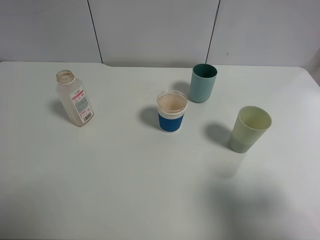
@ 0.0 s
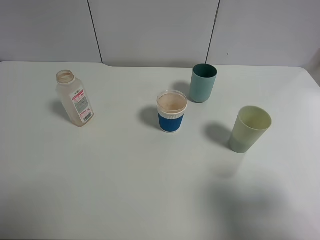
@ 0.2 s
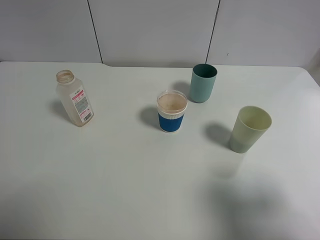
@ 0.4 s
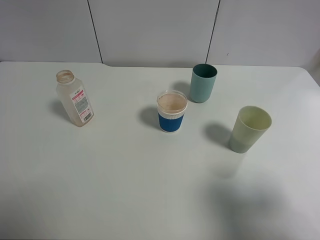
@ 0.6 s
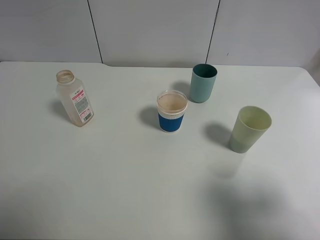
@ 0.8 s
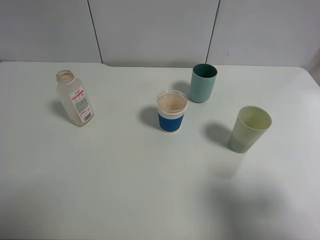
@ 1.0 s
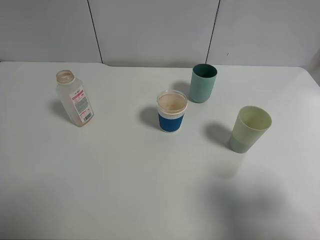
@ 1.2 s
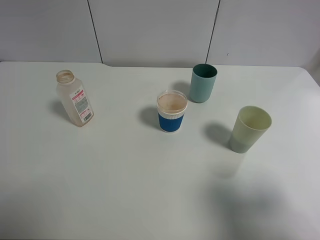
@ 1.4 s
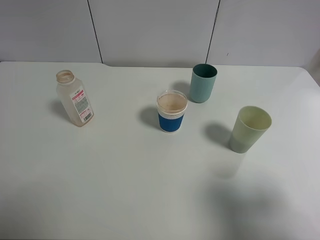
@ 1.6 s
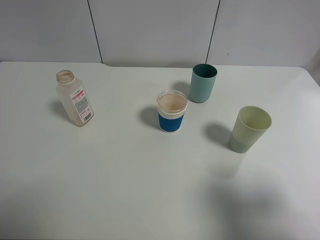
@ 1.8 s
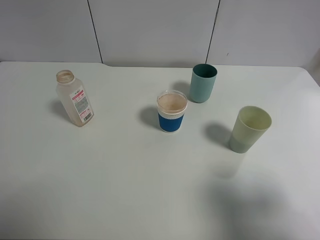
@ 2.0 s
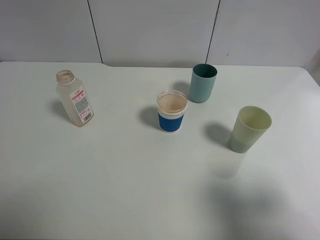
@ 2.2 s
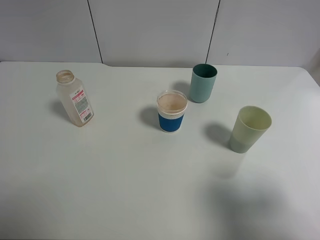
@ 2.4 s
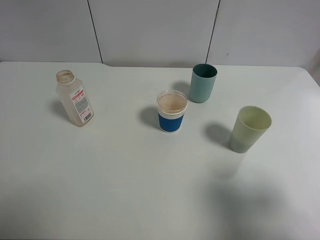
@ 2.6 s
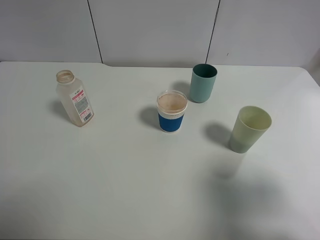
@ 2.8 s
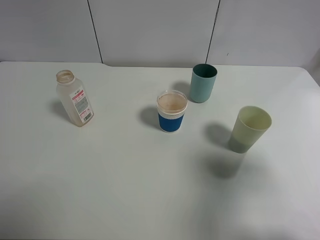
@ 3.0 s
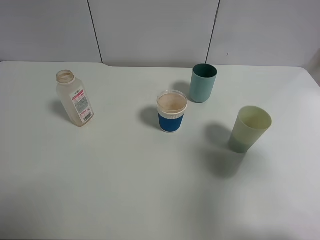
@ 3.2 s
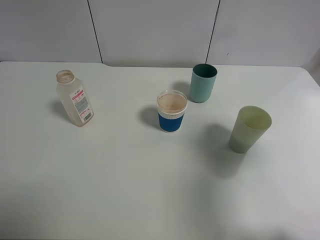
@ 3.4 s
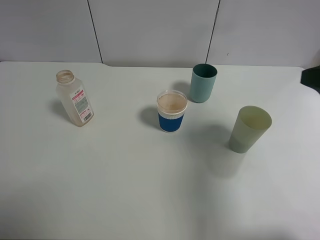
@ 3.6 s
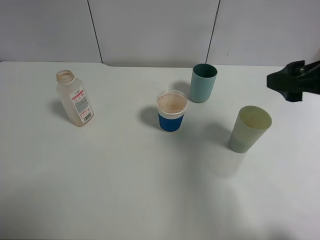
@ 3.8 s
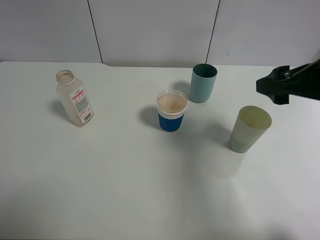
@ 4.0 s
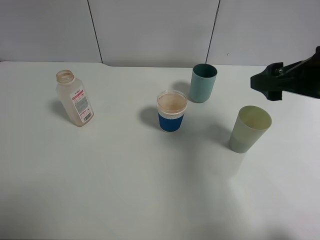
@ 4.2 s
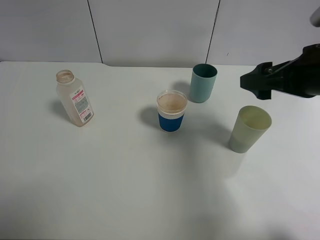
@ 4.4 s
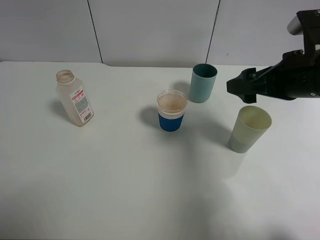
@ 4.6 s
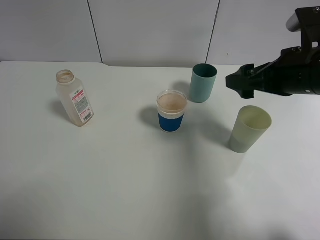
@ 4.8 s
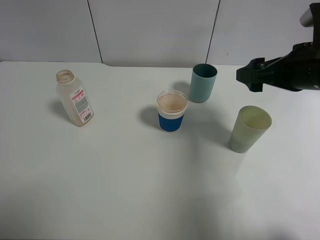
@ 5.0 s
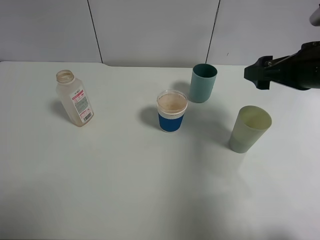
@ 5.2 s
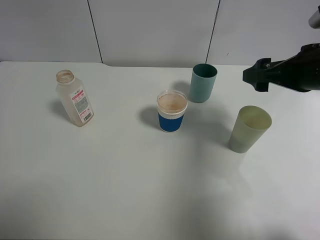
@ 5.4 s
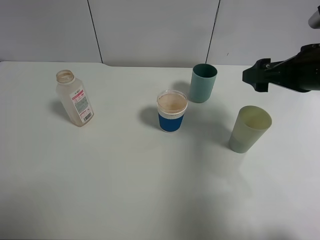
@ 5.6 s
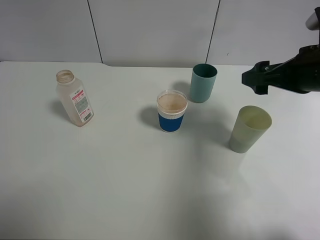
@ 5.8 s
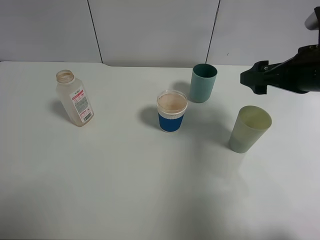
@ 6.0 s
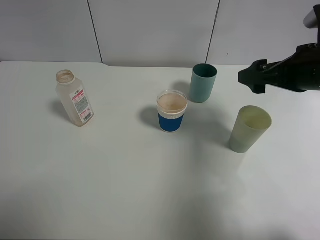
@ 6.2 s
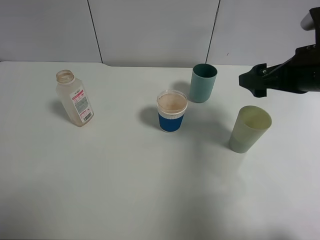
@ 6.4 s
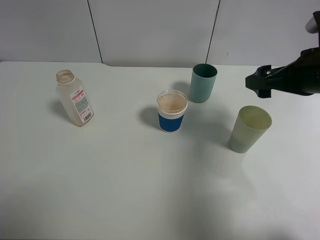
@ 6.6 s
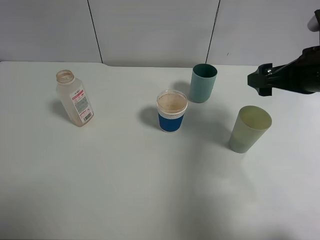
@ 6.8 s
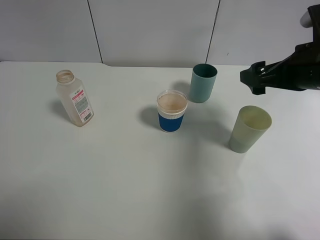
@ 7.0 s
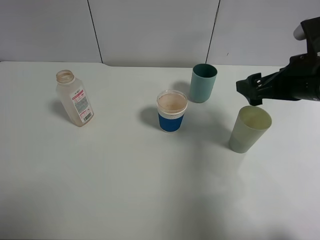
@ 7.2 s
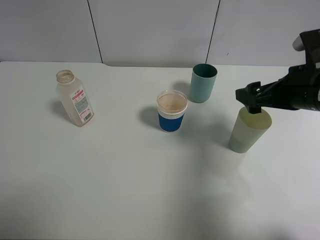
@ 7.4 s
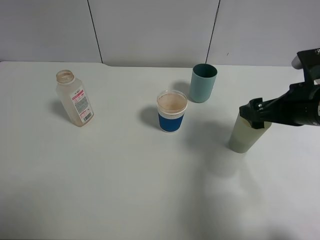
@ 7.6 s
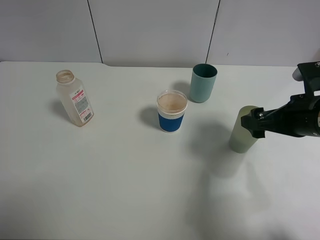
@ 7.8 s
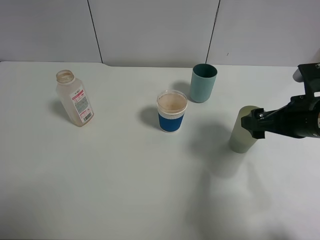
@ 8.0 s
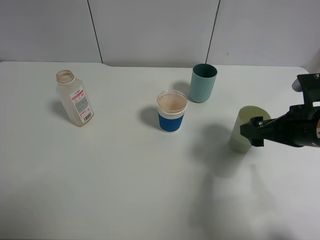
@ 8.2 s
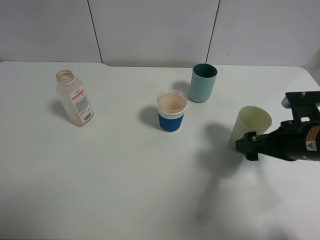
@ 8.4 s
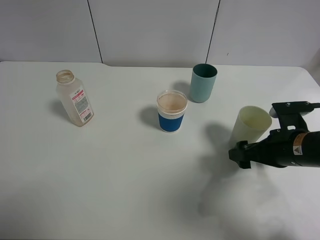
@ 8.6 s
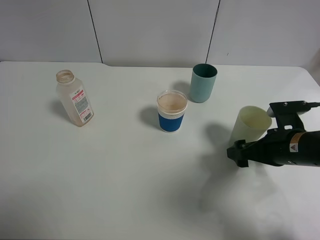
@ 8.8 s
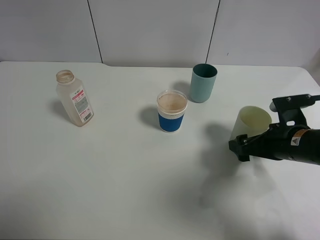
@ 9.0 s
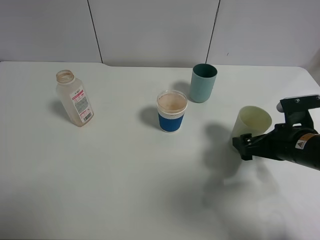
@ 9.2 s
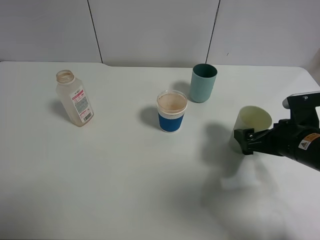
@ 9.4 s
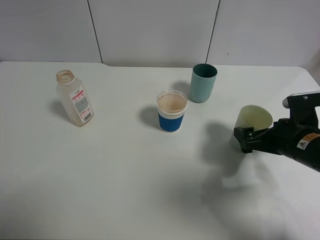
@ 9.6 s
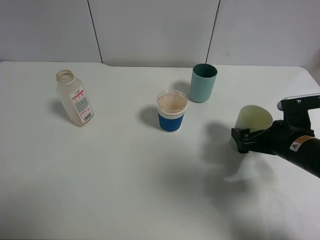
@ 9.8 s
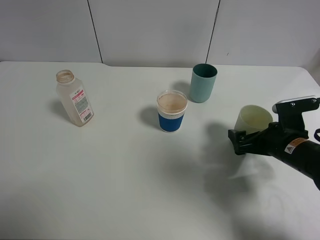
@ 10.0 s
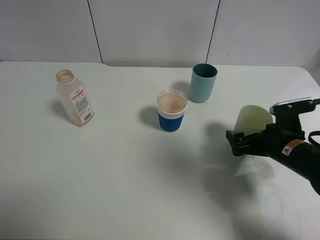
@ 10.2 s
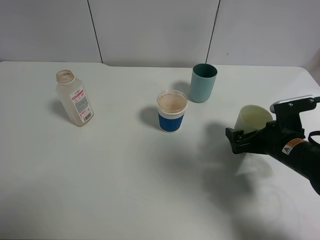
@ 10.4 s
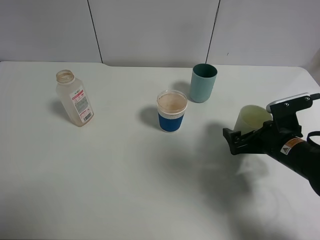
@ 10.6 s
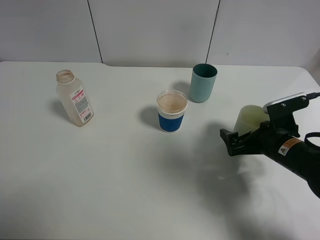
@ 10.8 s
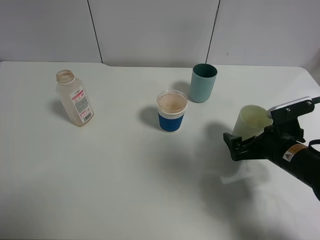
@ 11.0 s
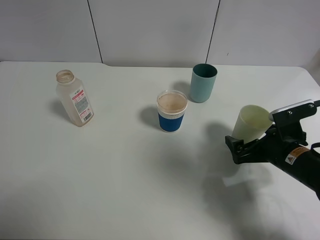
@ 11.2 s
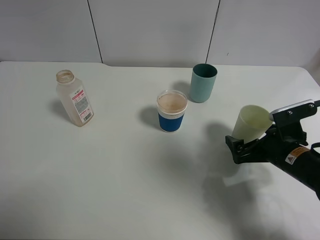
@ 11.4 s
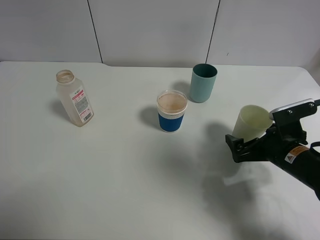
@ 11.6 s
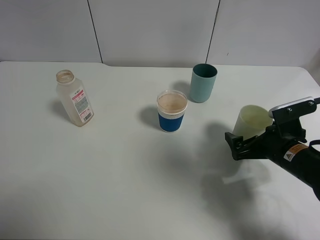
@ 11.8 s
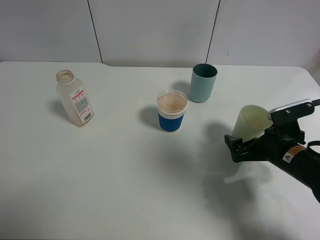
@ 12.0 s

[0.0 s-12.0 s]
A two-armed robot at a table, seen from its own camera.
Task of the whole recording: use a clamp to hold the bottle of the drink, pour the beverage into a random cup, then clamp the cup containing the drink and pour the drink into another random cup.
1.6 to 3.0 s: The right gripper travels forward by about 10 cm.
3.0 to 4.4 s: The right gripper travels forward and to the left by about 15 cm.
4.4 to 6.0 s: The grippers move only a little.
6.0 to 7.6 s: The right gripper changes place by roughly 5 cm.
7.6 to 9.0 s: The right gripper heads downward, covering roughly 10 cm.
9.0 to 10.4 s: The grippers stay close to where they were, moving slightly.
10.4 to 12.0 s: The grippers move only a little.

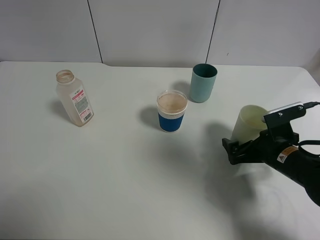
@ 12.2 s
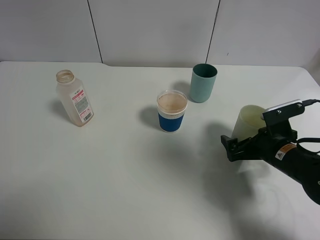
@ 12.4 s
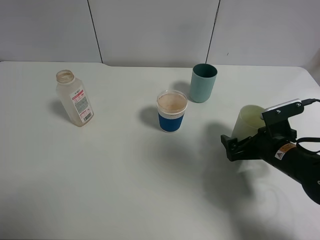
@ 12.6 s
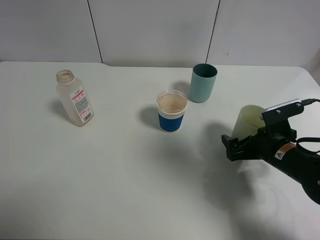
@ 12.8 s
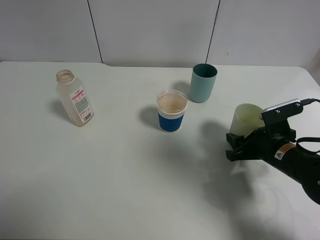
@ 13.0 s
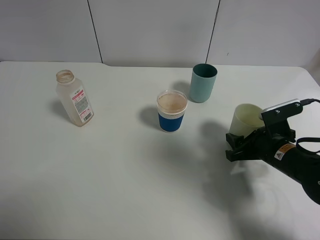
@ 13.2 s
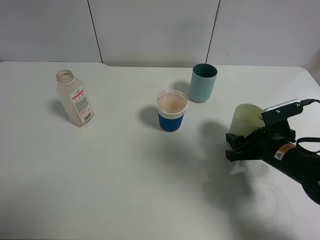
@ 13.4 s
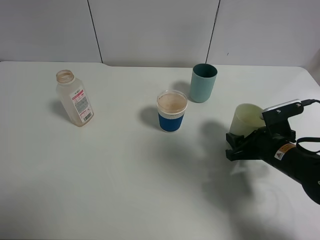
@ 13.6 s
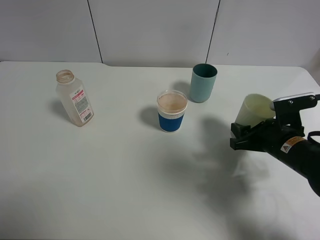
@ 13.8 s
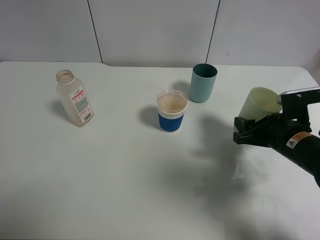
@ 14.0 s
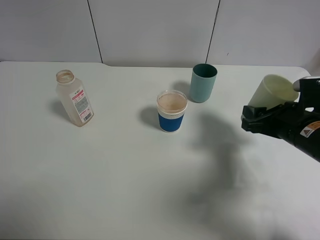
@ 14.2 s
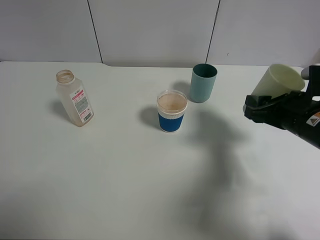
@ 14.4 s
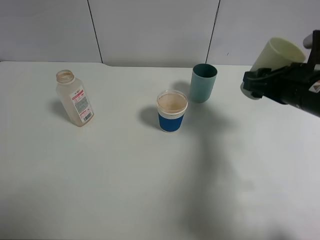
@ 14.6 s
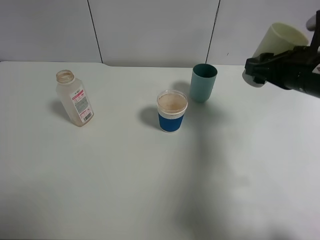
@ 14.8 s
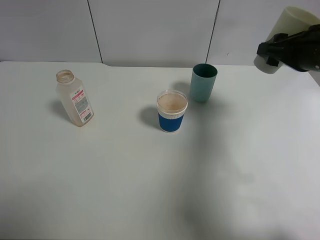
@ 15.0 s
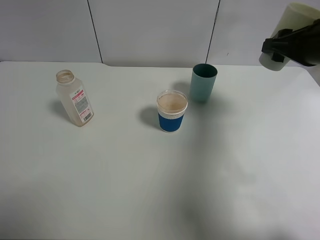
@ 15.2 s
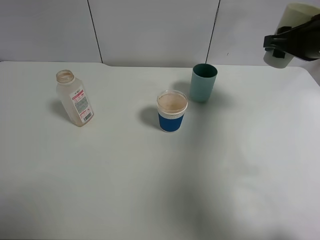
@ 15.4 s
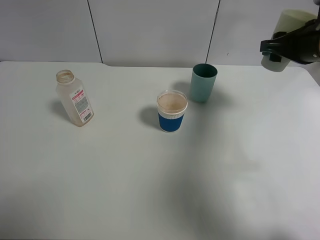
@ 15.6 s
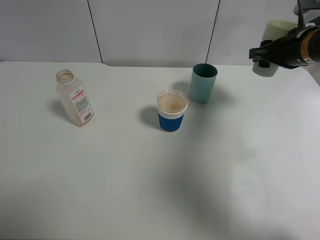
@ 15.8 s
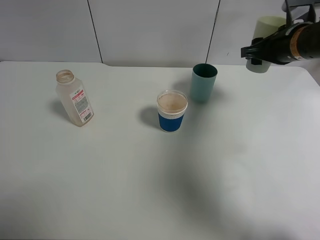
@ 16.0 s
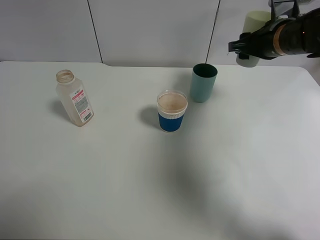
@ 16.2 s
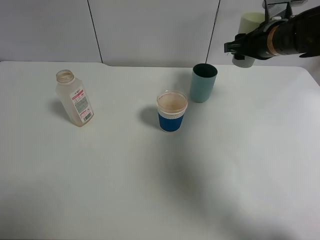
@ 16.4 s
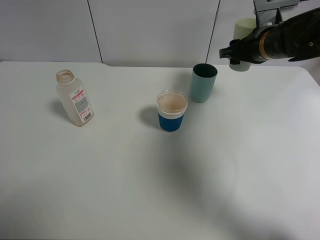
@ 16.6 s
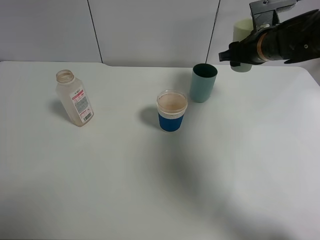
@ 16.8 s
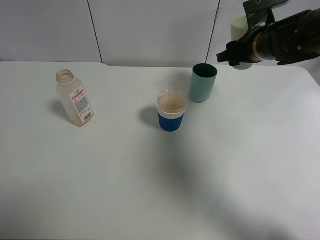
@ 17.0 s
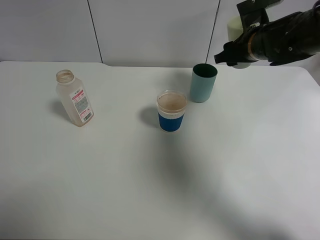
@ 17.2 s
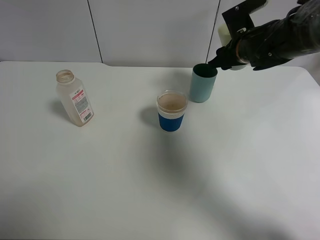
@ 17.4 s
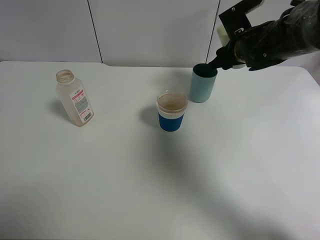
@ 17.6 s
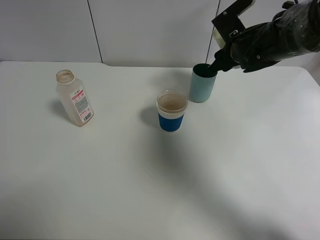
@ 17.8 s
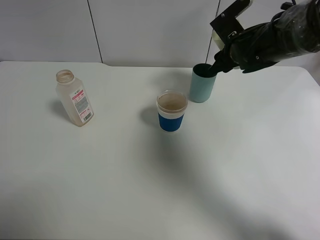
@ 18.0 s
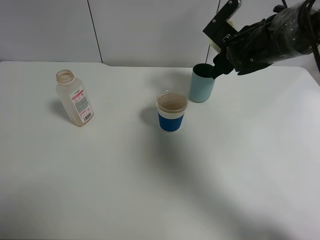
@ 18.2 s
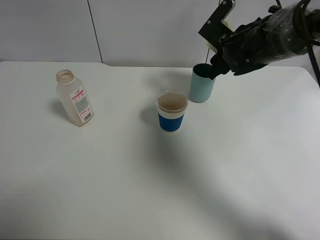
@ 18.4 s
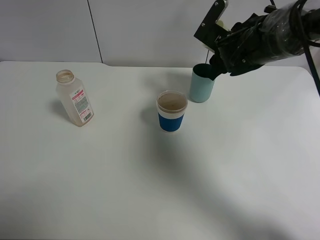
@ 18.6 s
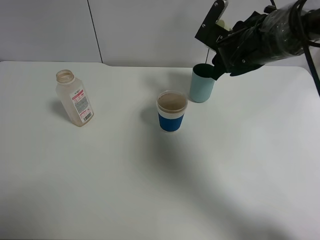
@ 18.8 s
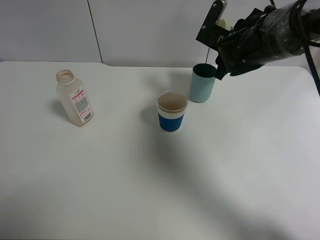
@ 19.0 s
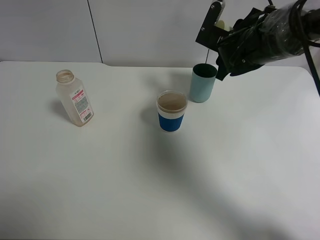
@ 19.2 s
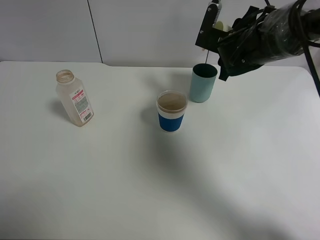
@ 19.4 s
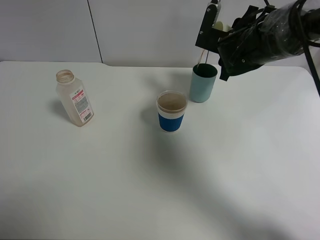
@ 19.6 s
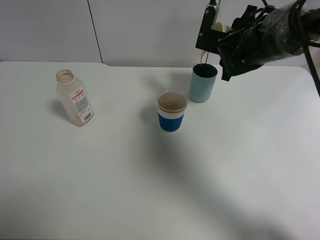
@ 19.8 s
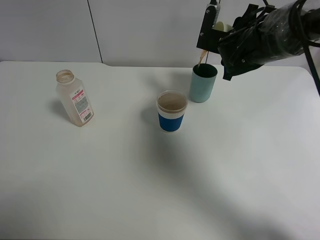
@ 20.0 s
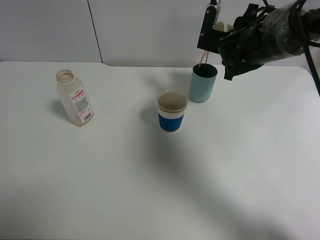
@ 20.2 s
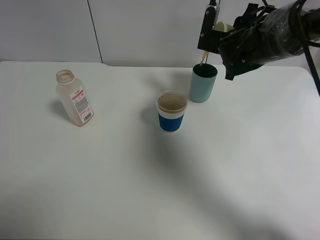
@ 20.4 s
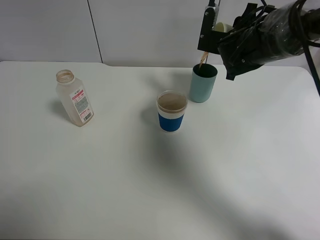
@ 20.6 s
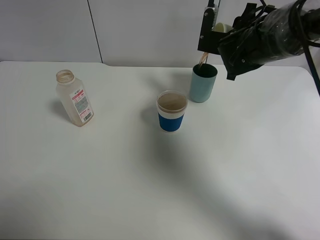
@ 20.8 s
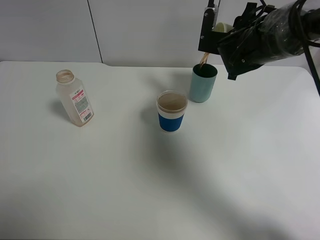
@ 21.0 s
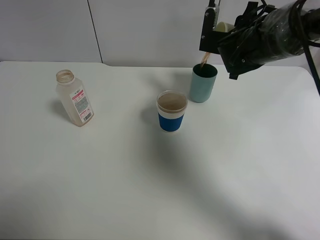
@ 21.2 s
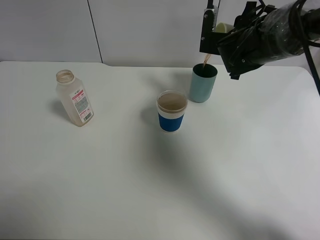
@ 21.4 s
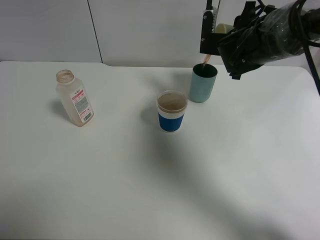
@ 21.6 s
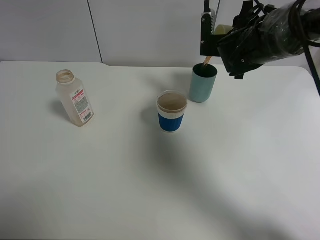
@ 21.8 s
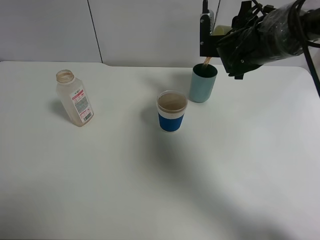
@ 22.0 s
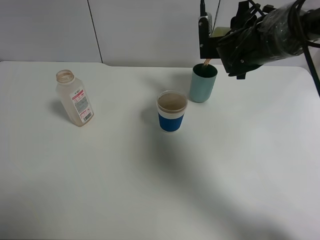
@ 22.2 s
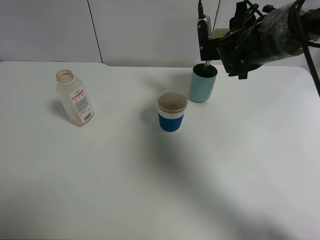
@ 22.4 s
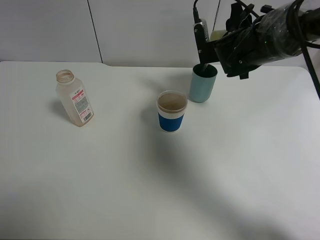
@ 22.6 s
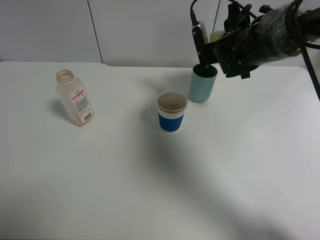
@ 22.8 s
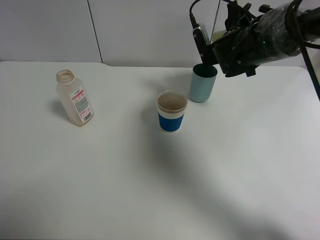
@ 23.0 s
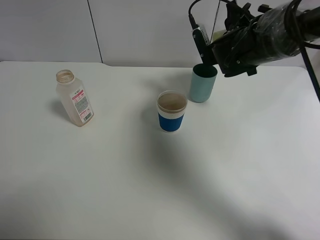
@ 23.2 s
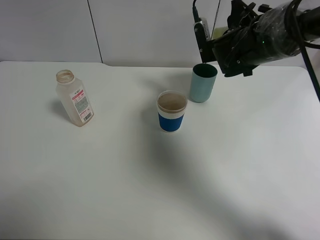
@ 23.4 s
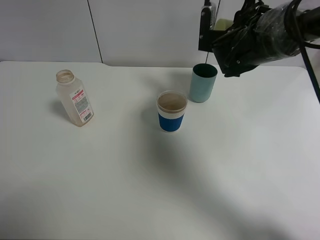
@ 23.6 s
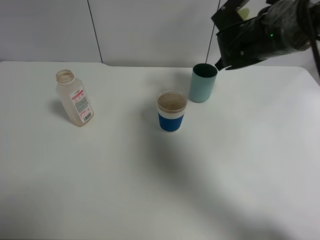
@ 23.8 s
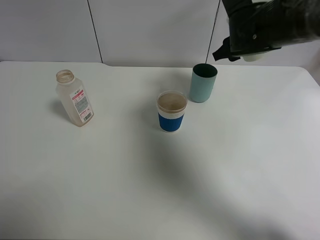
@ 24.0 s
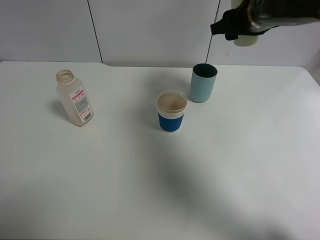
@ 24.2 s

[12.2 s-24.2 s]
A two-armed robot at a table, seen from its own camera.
Task of the whole recording: use a clamp to hold the bottle of the drink, pour the beverage into a random cup, then clamp the cup containing the drink and pour the drink into another random cup.
Step, 13.8 to 23.6 s: Pour the drink into the blue plastic cup with right gripper.
12.2 to 13.8 s: The right gripper closes up.
13.8 to 15.2 s: The right gripper moves upward and forward, about 20 cm.
15.2 to 16.6 s: The right gripper is displaced forward, to the left and downward by approximately 10 cm.
16.6 to 18.2 s: The right gripper moves roughly 5 cm.
19.8 to 21.2 s: The grippers make only small movements.
22.6 to 24.2 s: The right gripper is displaced upward by some 10 cm.
